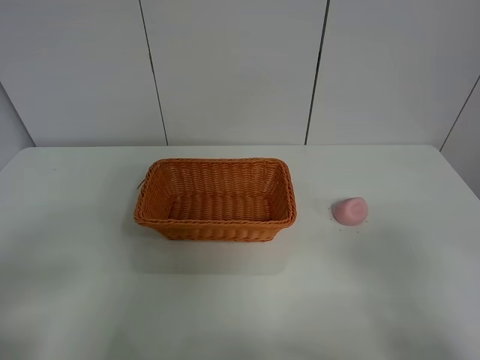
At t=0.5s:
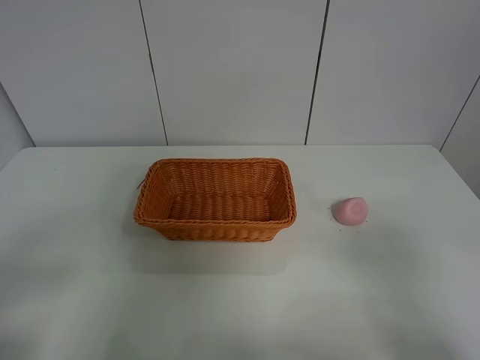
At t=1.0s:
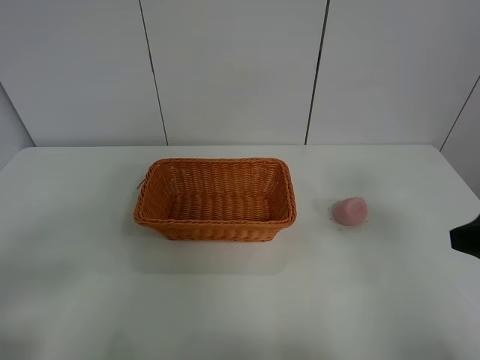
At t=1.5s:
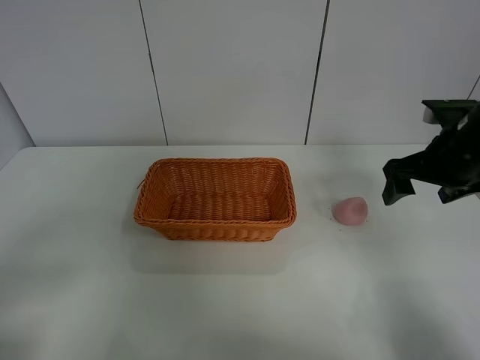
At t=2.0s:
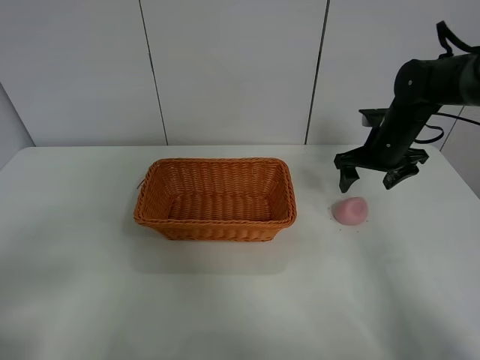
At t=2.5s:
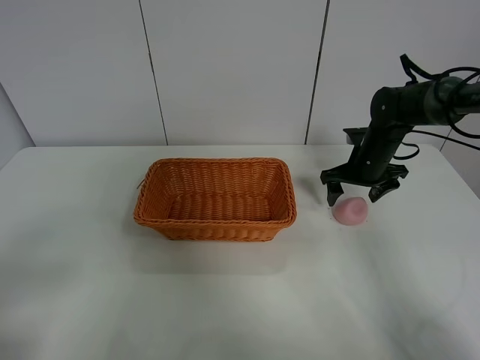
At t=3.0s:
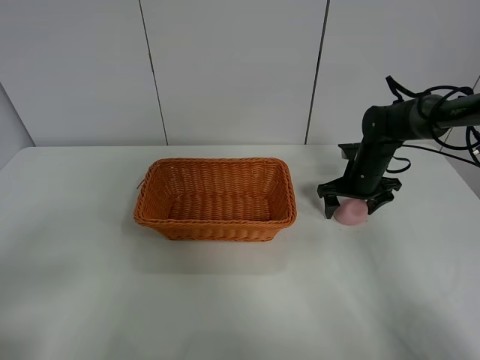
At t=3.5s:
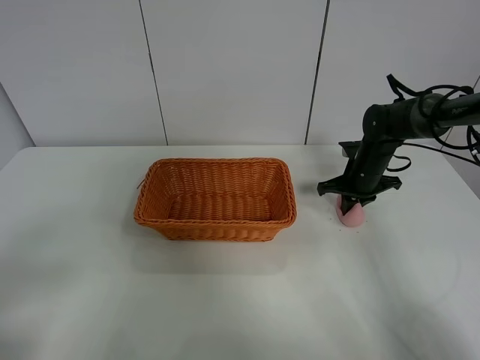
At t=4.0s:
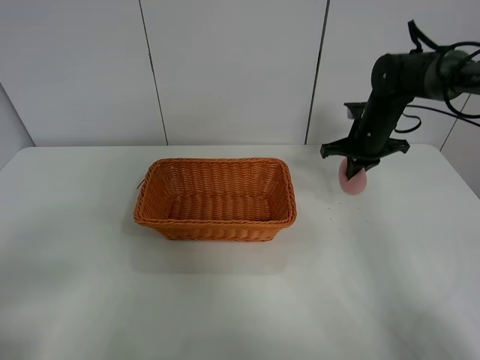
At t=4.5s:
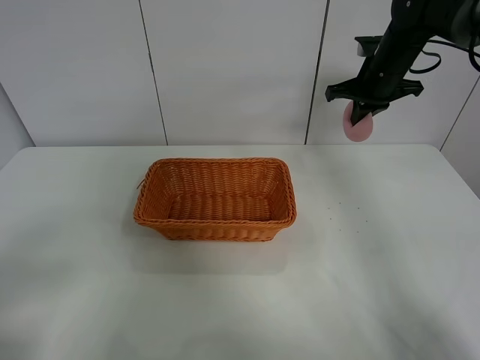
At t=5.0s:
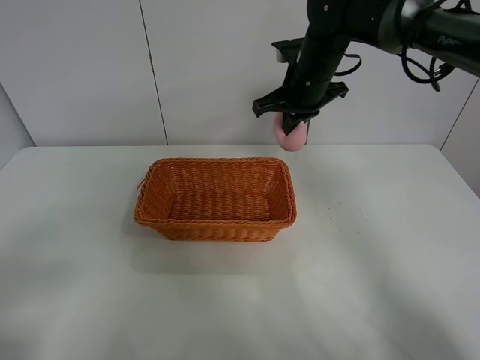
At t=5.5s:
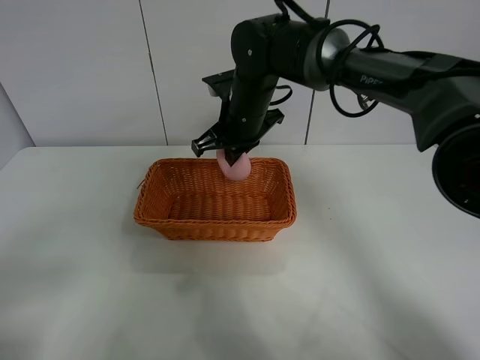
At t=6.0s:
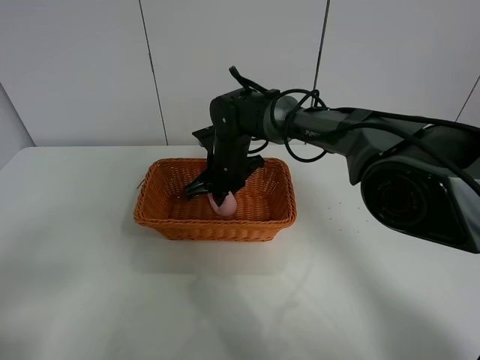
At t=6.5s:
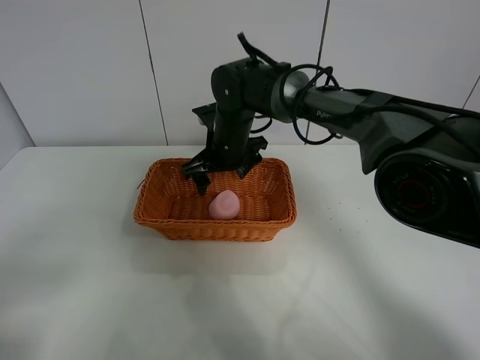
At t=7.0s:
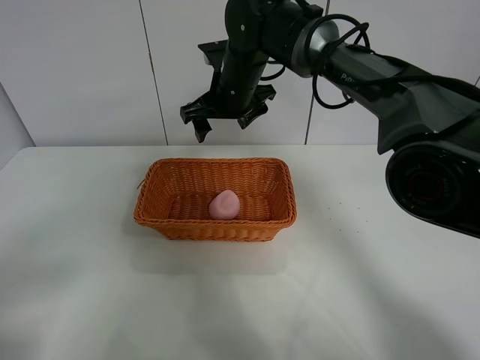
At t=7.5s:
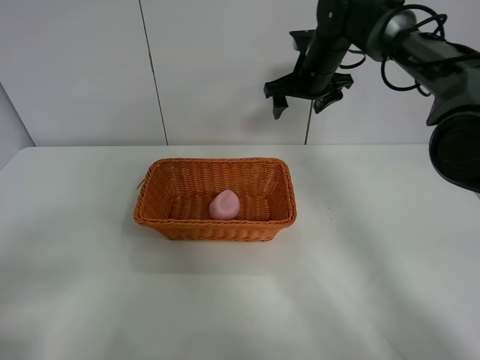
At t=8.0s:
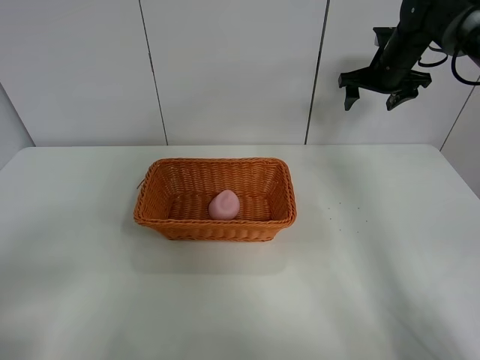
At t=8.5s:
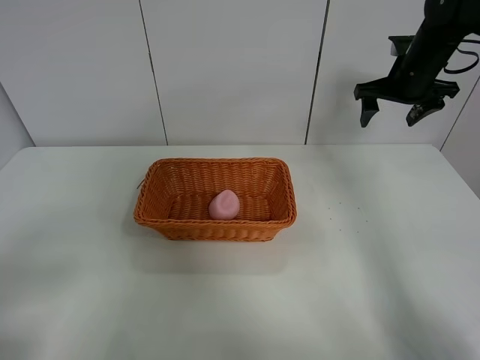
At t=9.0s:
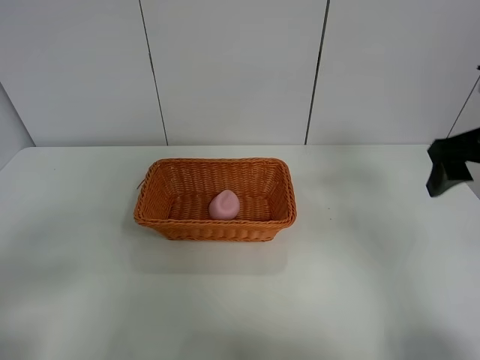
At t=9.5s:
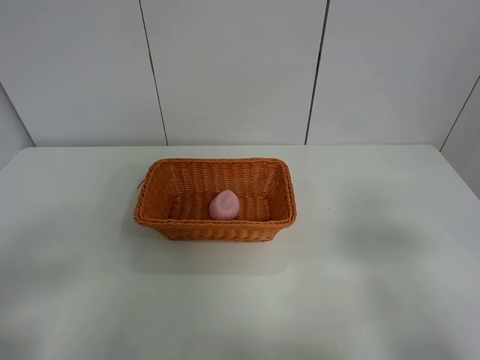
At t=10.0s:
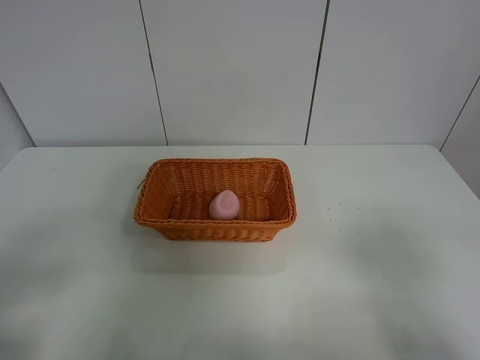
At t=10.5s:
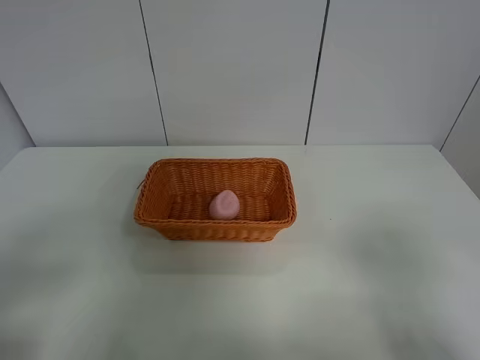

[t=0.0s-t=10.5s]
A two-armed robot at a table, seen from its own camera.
Step, t=0.0s to t=3.5s: Grasp the peach with right gripper.
Step, t=4.0s to t=6.5s: Place the peach in the basket with right gripper.
t=0.0s to t=2.0s: The right gripper shifts approximately 40 cm forward.
t=2.0s to t=4.0s: The right gripper moves about 10 cm downward and comes back, and closes.
t=4.0s to t=6.5s: The right gripper heads to the left, covering approximately 25 cm, and opens its fingers.
t=6.5s to t=8.5s: The right gripper is displaced to the right by some 30 cm.
t=8.5s to t=10.5s: The right gripper heads backward, covering about 40 cm.
